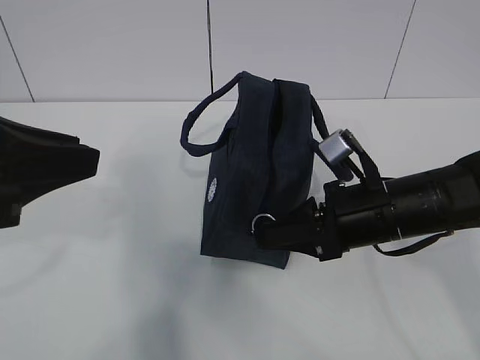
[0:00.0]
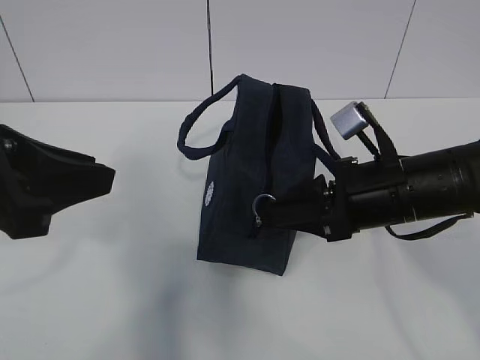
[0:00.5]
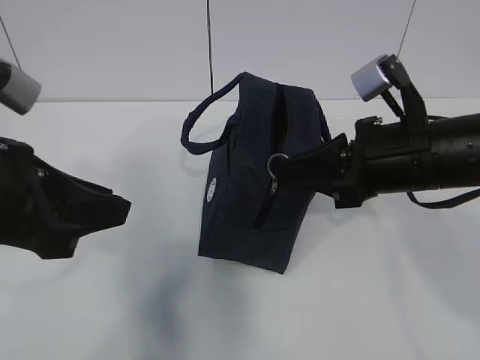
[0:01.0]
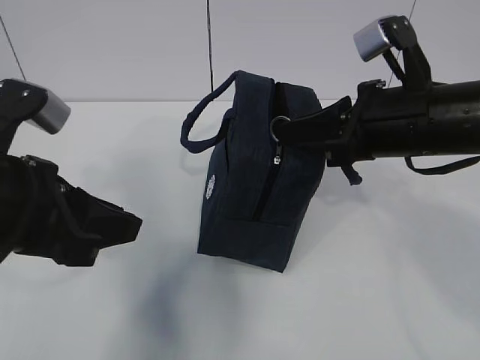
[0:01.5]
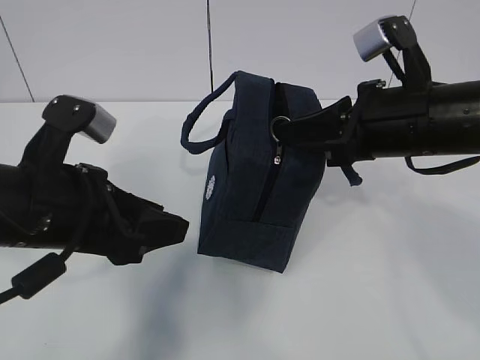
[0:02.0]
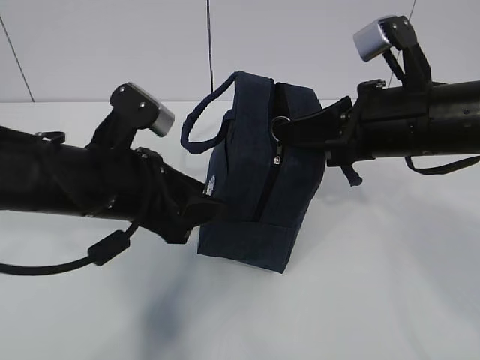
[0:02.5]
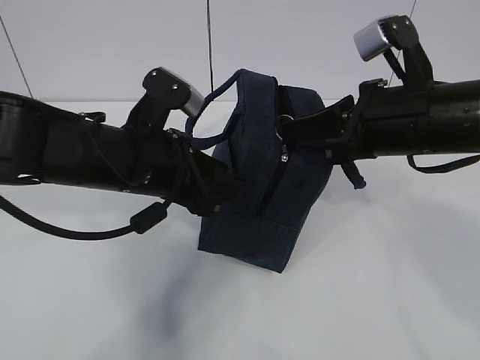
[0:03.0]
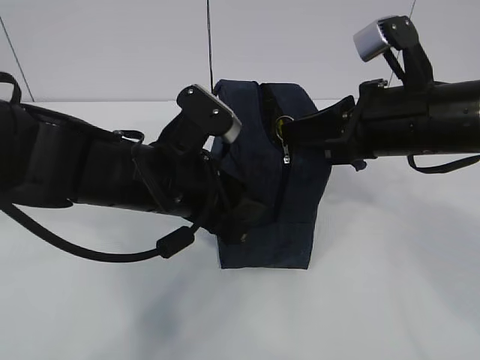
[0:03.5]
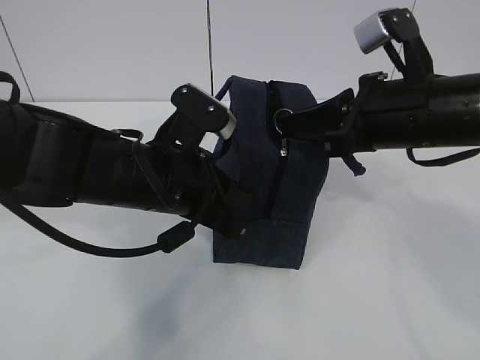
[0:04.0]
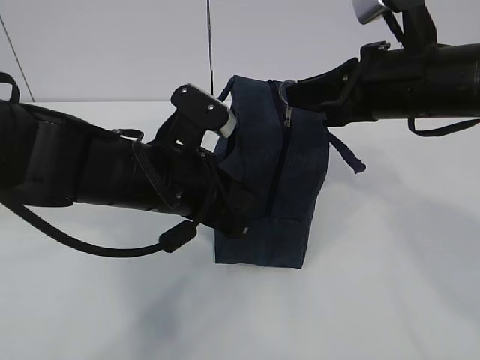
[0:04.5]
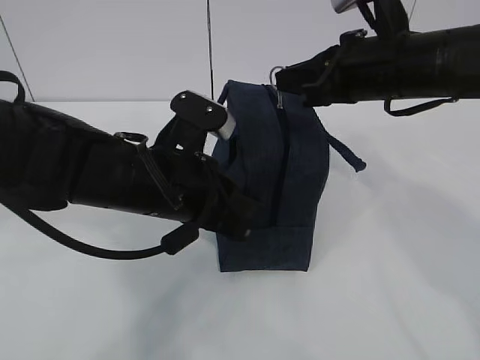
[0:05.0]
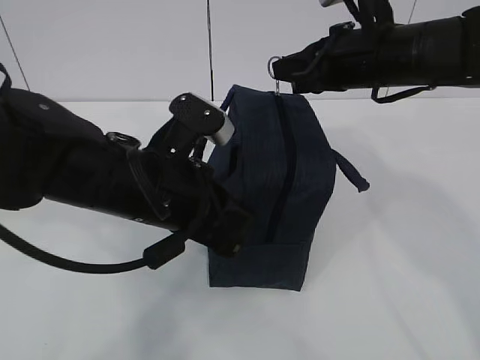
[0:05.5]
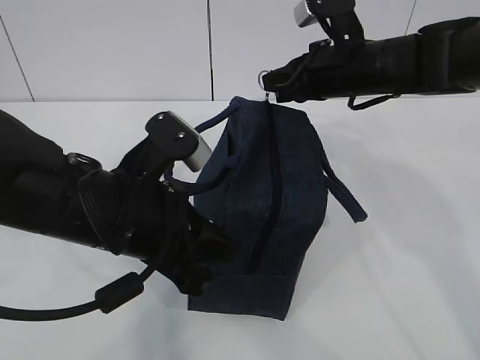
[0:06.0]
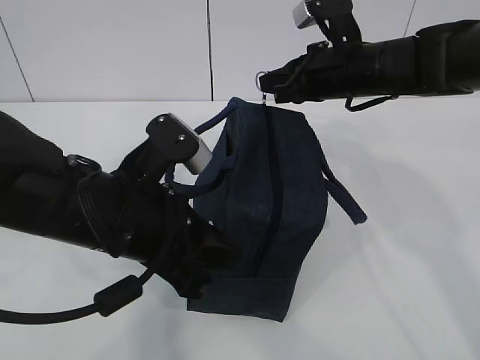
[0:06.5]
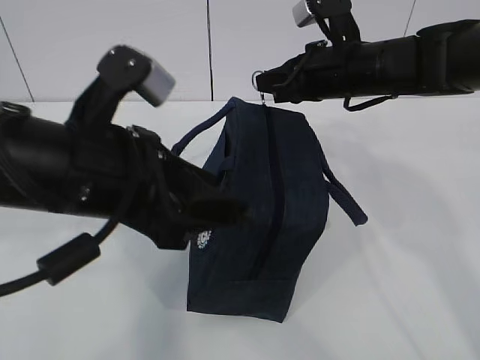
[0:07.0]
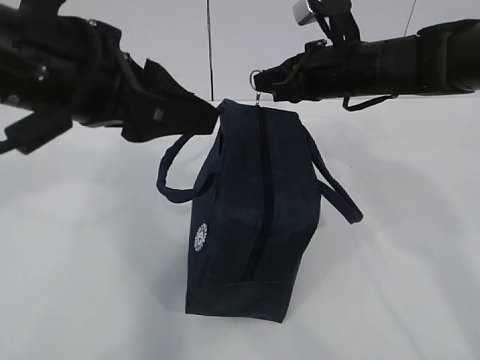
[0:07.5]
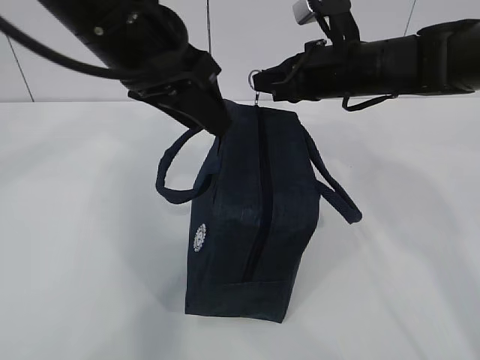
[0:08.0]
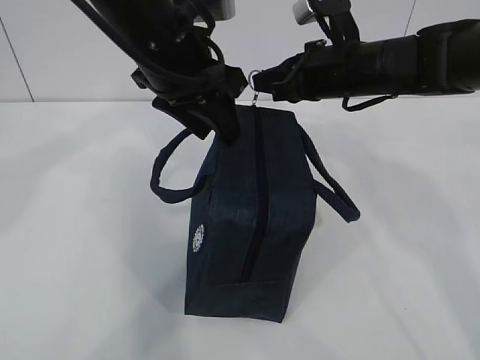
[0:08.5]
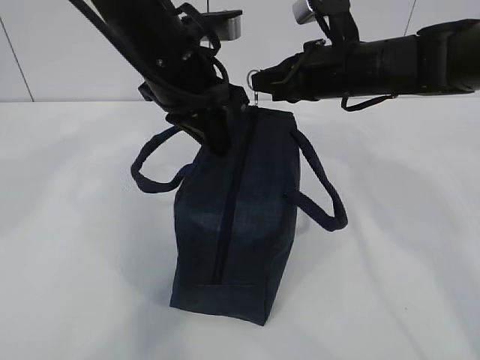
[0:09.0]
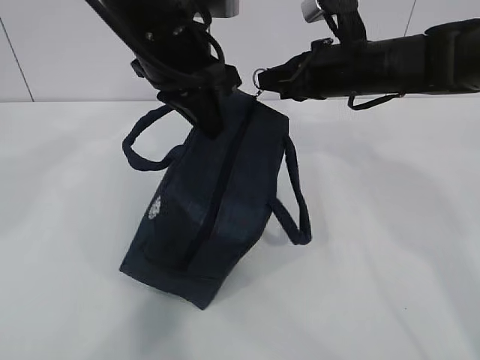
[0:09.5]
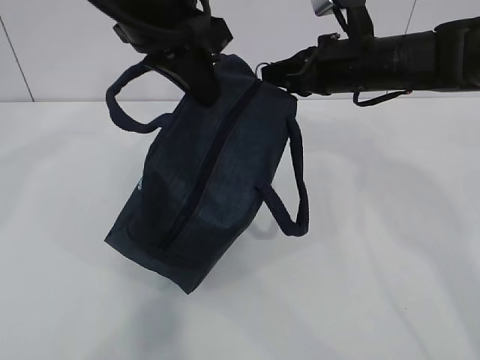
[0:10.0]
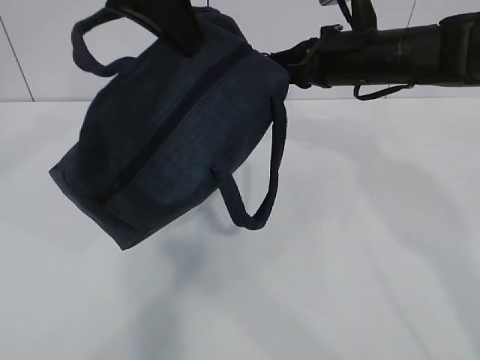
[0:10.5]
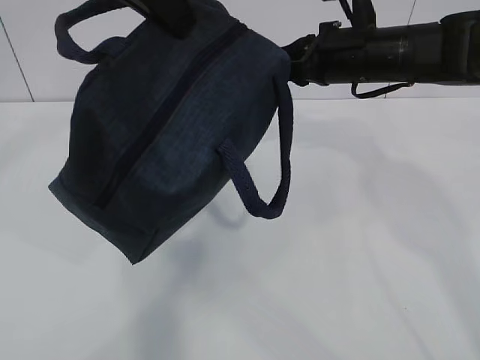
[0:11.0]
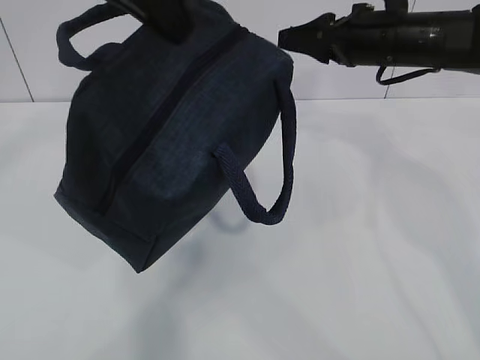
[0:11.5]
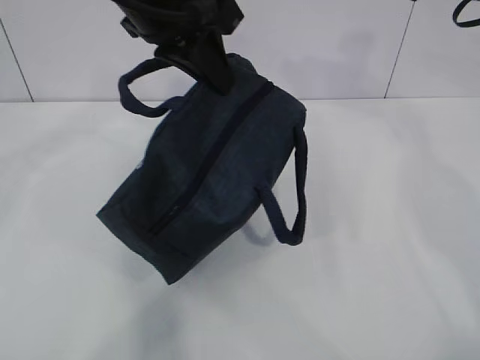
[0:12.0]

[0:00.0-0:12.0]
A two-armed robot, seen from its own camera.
Step, 0:00.0 to 0:02.5: Pull the zipper with your right hand.
Step, 0:03.0 to 0:04.0: Grab the lunch bag with your left hand.
0:00.0 to 0:02.0: The right gripper is displaced upward by roughly 10 cm, while the left gripper is displaced downward by about 10 cm.
0:02.0 to 0:04.0: The left gripper heads to the right and forward, covering roughly 10 cm, and closes its fingers.
0:04.0 to 0:06.0: The left gripper shifts by about 5 cm. The right gripper goes roughly 10 cm forward.
0:06.0 to 0:08.0: The left gripper is displaced upward and forward by about 15 cm, and opens up.
0:08.0 to 0:10.0: The left gripper closes.
0:10.0 to 0:12.0: The right gripper shifts about 15 cm to the right and upward, and opens its fingers.

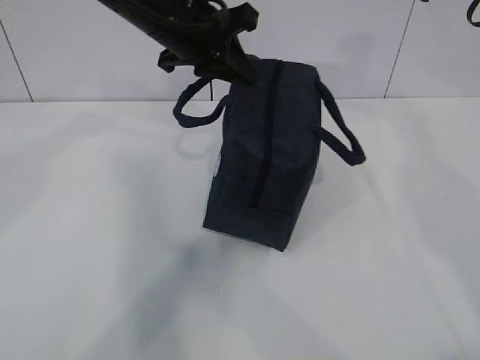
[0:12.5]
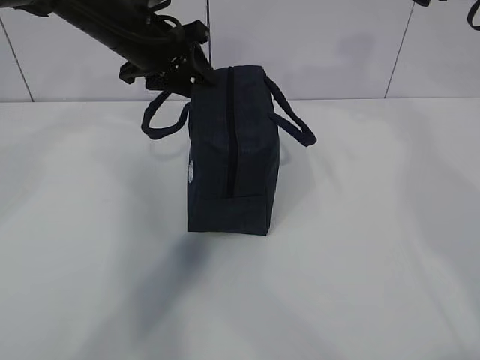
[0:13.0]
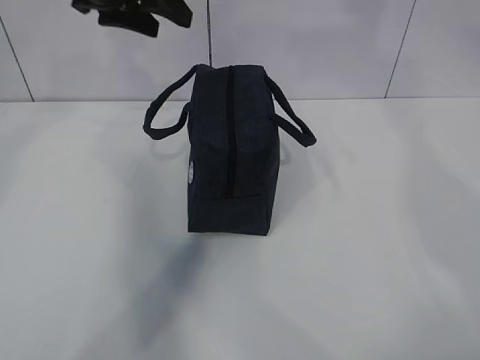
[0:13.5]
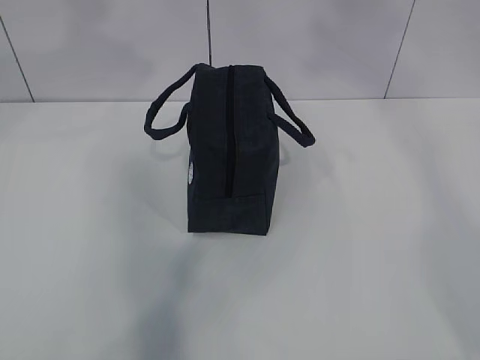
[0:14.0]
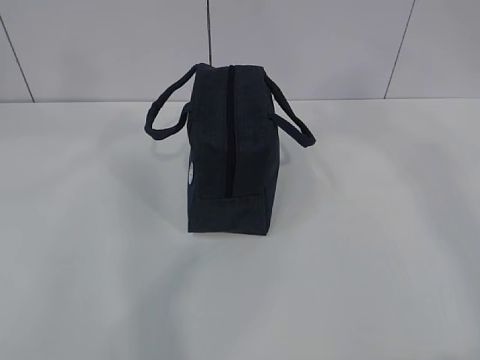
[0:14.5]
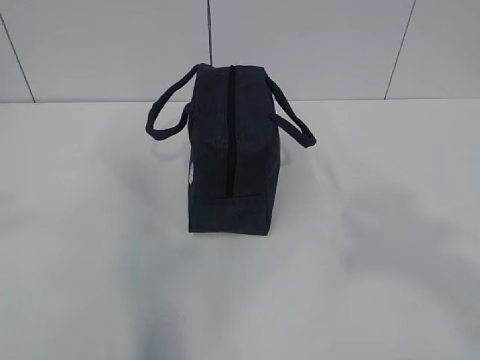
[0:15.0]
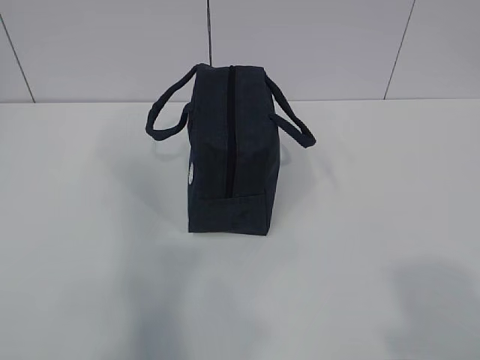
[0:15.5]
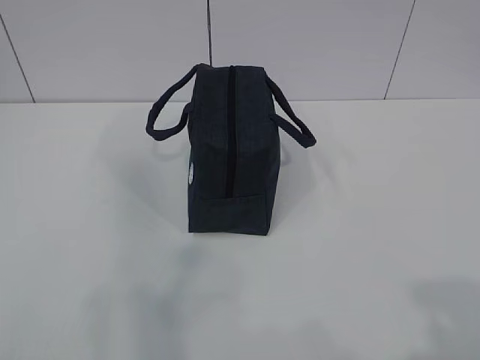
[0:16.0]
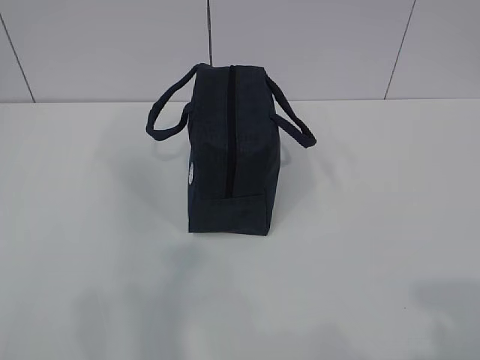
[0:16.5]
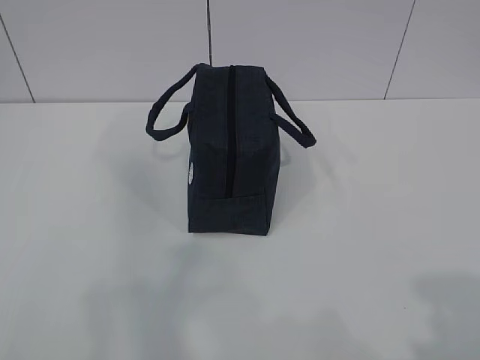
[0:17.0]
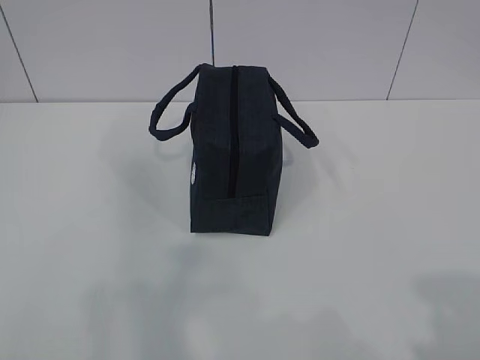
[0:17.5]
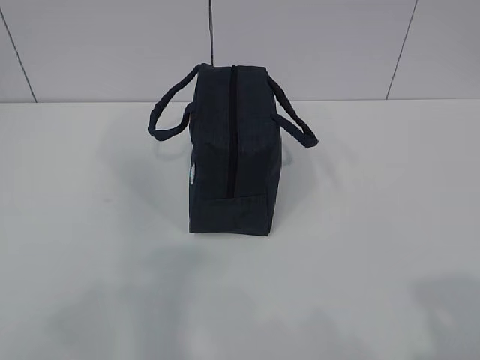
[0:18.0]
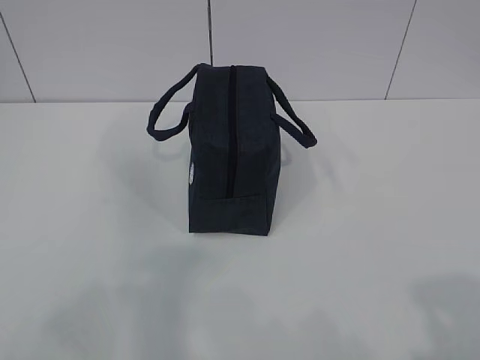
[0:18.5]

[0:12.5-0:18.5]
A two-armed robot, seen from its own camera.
0:12.5 to 0:14.5: The left gripper shifts about 35 cm backward, upward and to the left, and opens up, while the right gripper shifts some 40 cm backward and upward.
